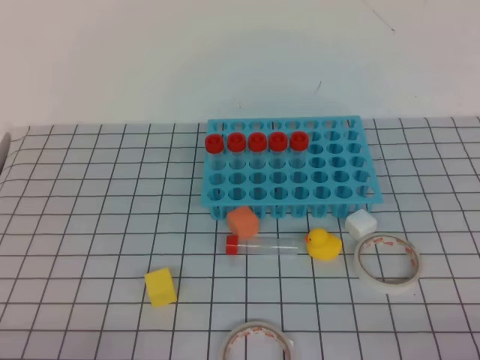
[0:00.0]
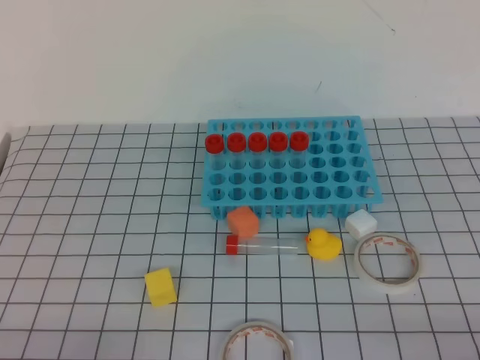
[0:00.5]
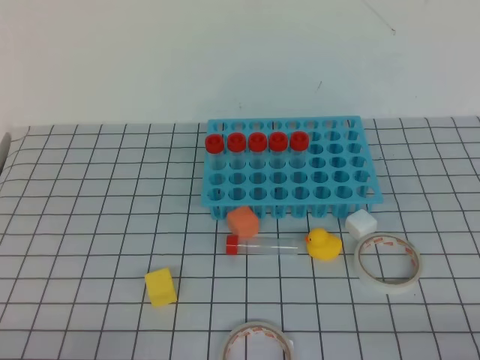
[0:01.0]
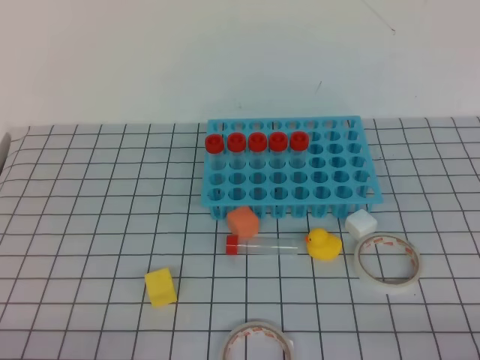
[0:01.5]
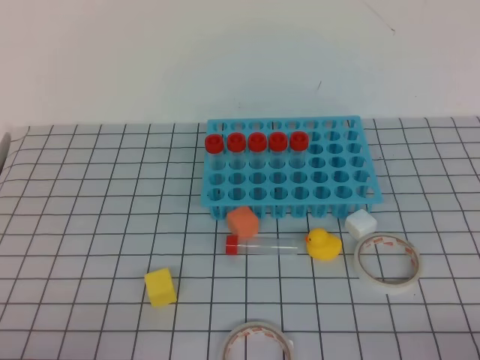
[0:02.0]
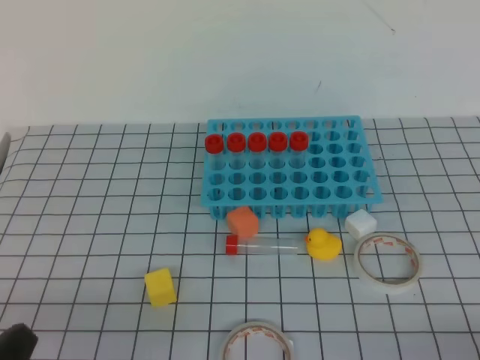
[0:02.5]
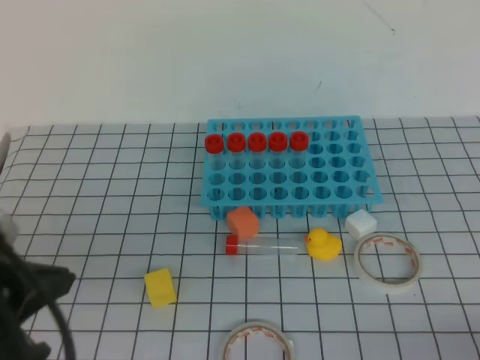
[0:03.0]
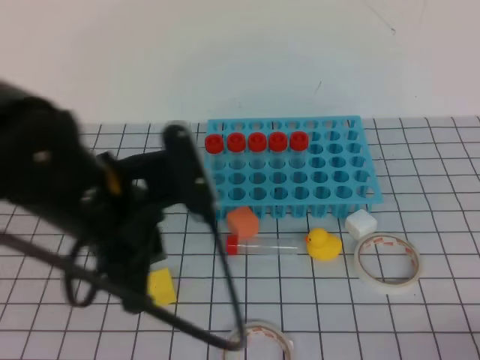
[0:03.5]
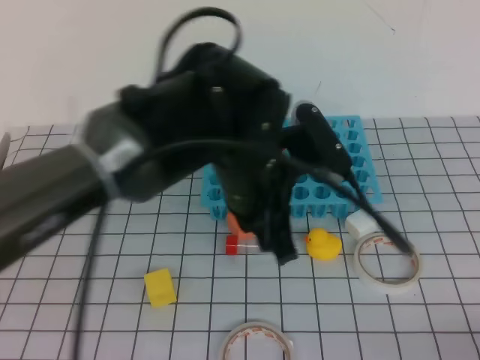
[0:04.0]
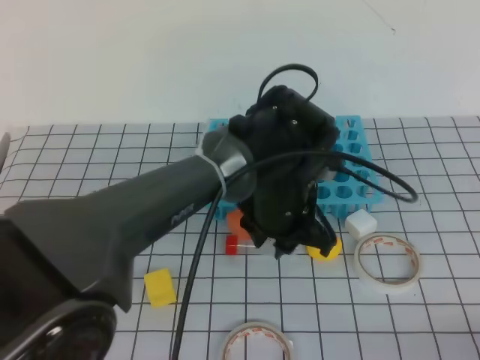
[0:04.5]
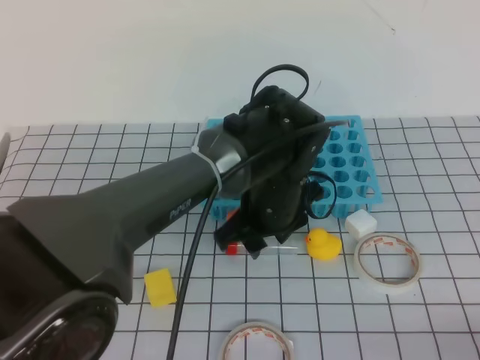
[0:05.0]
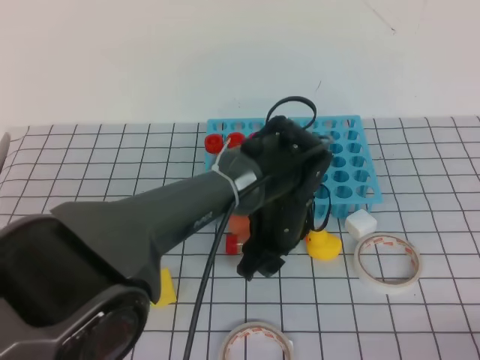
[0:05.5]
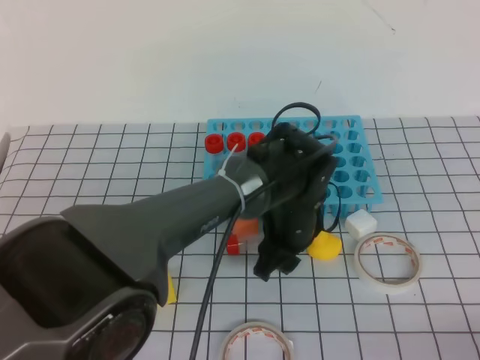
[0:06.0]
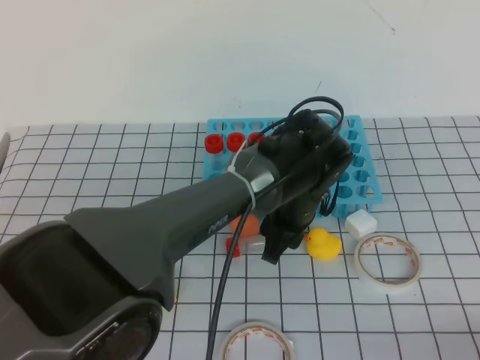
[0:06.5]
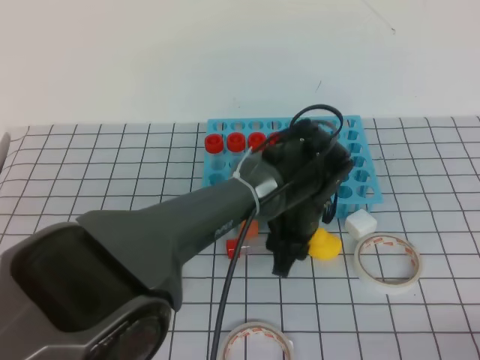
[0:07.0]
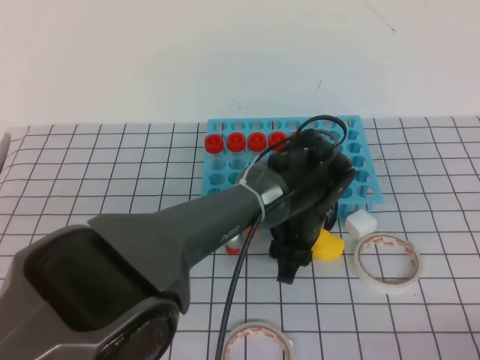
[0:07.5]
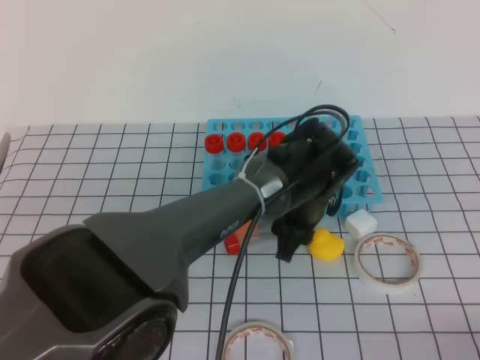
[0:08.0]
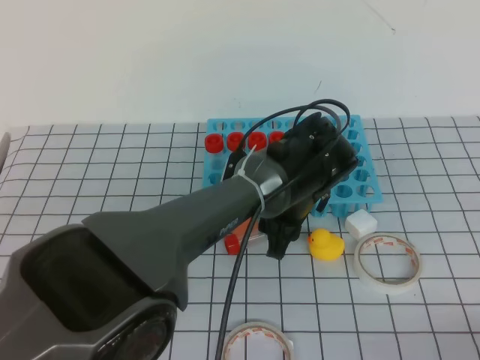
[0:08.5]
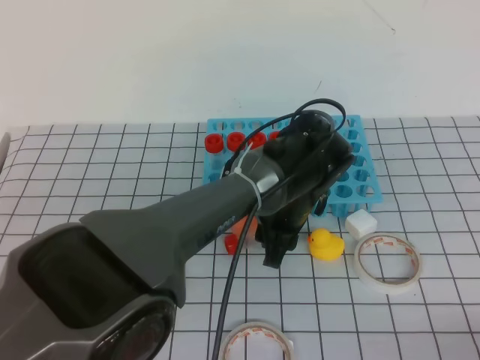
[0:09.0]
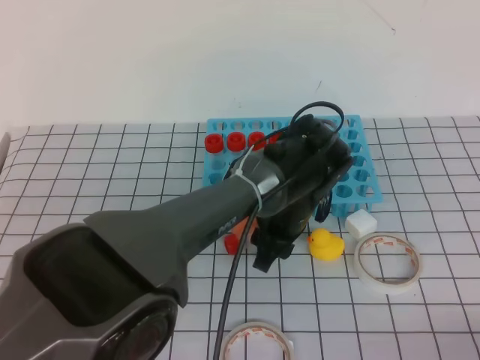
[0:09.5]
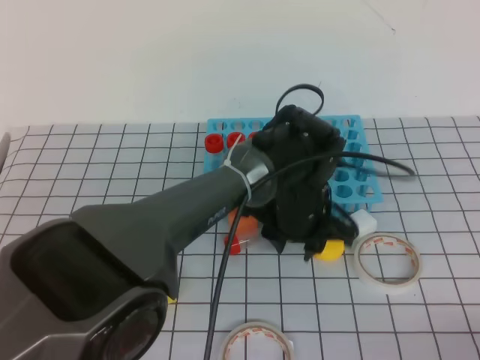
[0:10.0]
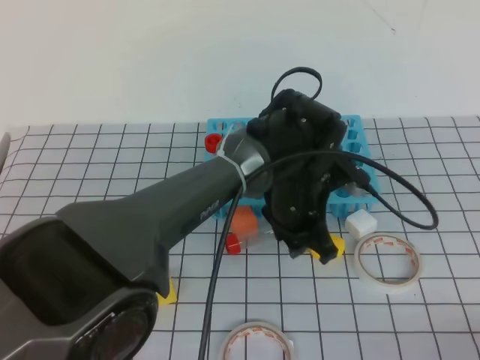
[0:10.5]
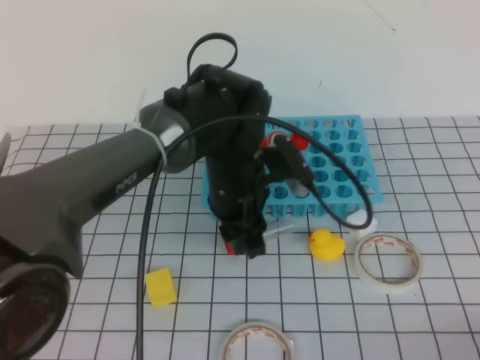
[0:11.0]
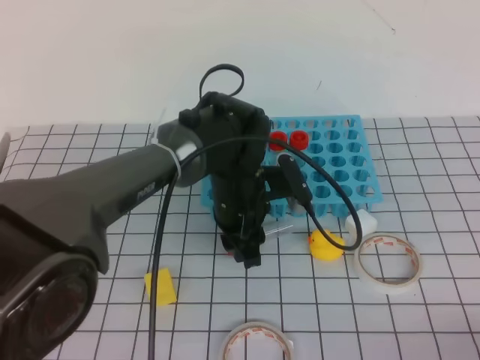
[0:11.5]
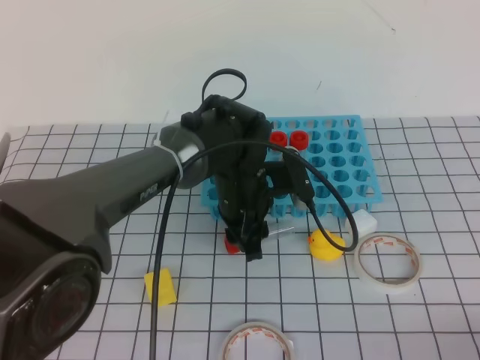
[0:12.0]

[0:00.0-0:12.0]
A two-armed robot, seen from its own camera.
0:02.0 to 0:04.0: The left gripper shifts about 35 cm to the right, forward and upward.
0:04.0 to 0:06.0: The left gripper goes roughly 15 cm downward, forward and to the right, and opens its fingers.
0:10.0 to 0:12.0: The left gripper moves to the left, approximately 5 cm.

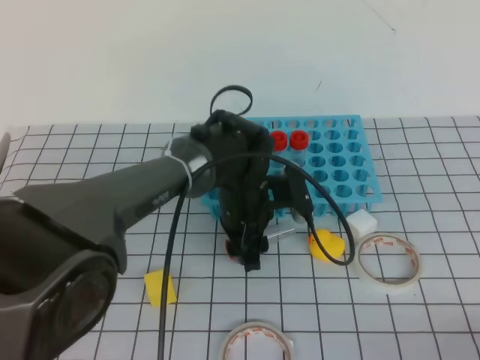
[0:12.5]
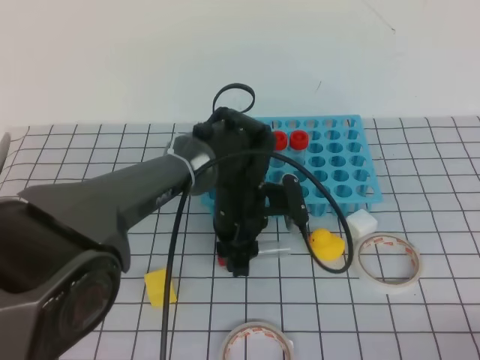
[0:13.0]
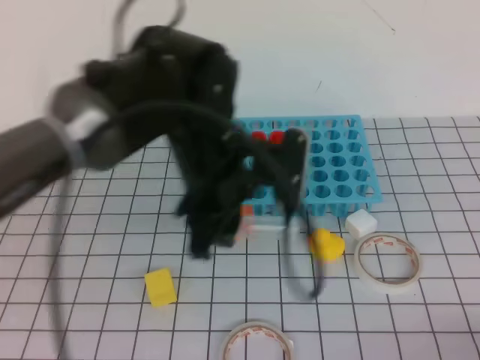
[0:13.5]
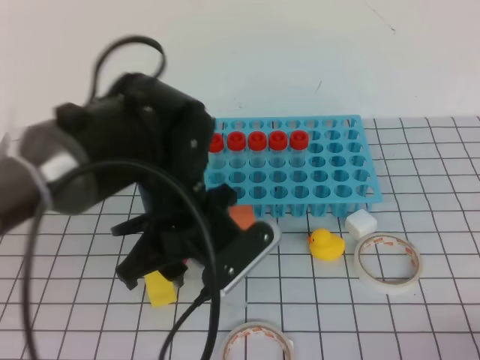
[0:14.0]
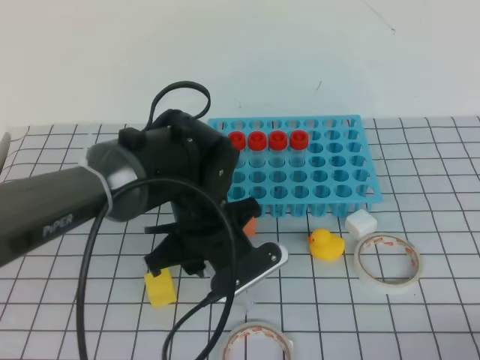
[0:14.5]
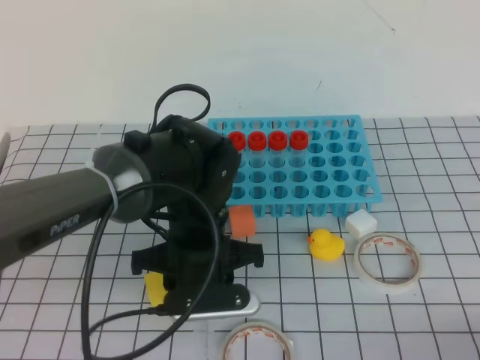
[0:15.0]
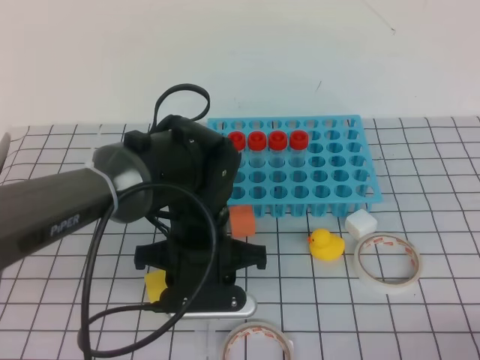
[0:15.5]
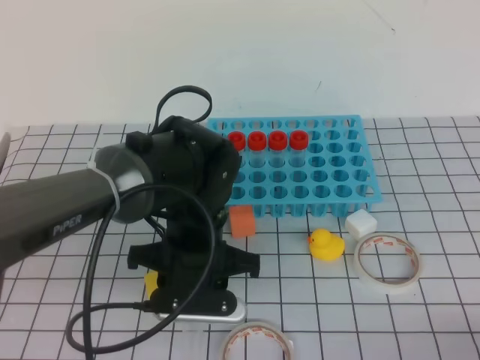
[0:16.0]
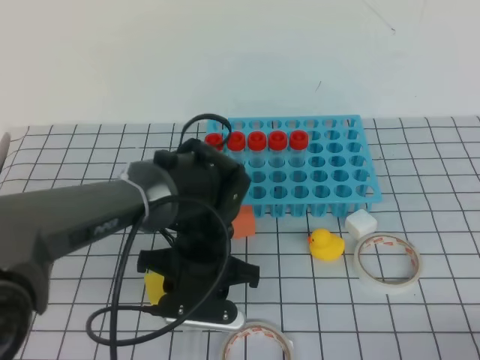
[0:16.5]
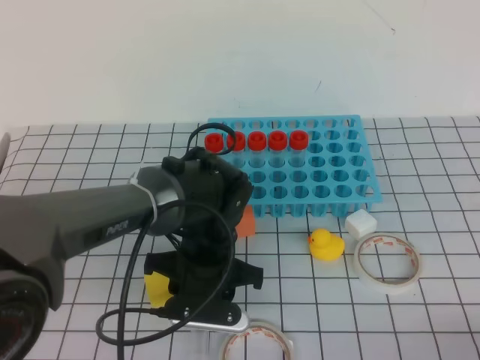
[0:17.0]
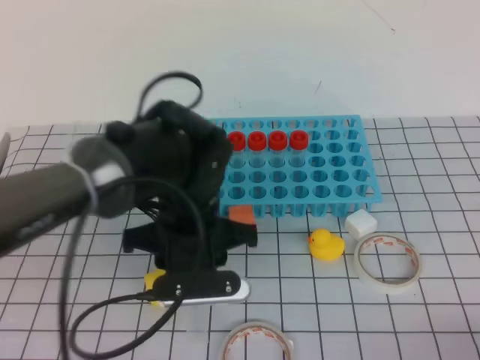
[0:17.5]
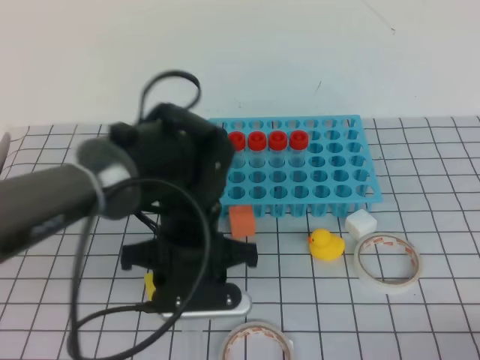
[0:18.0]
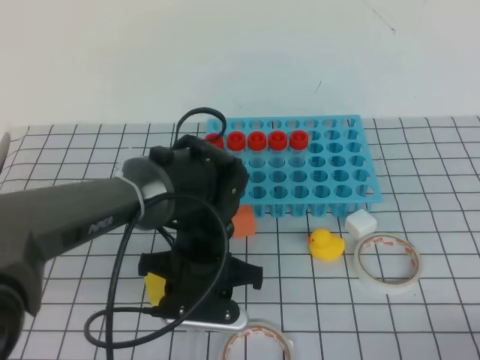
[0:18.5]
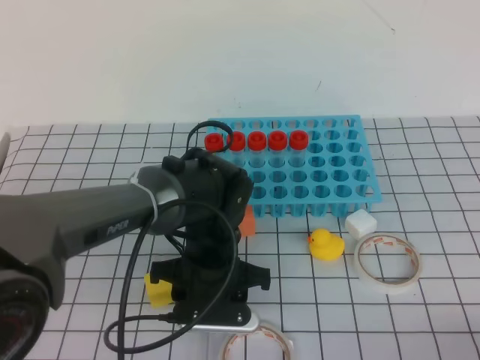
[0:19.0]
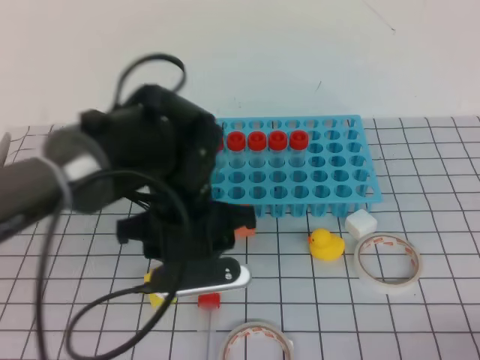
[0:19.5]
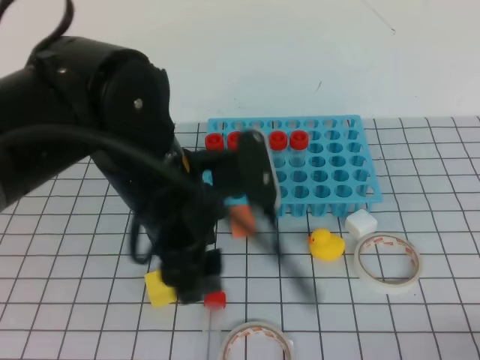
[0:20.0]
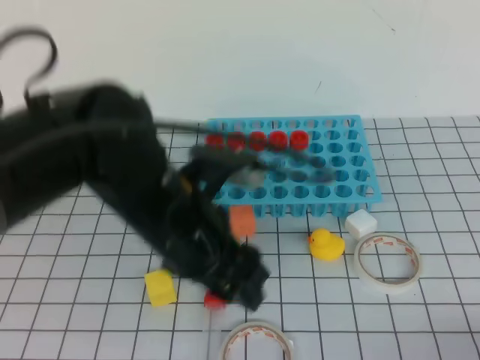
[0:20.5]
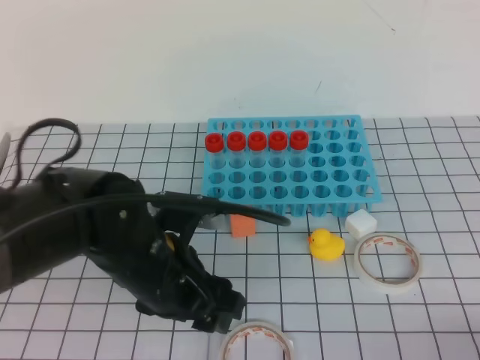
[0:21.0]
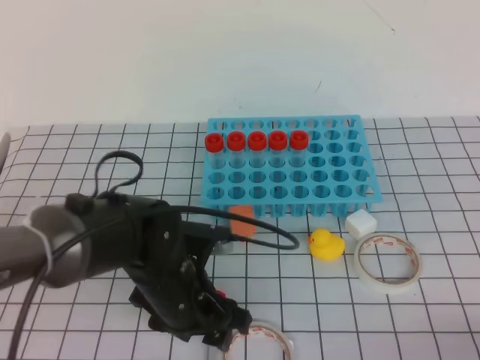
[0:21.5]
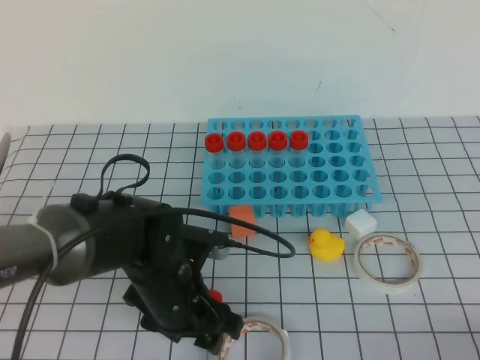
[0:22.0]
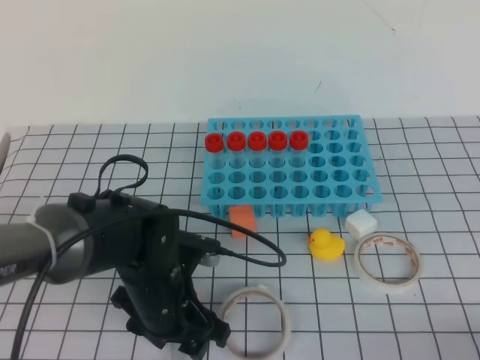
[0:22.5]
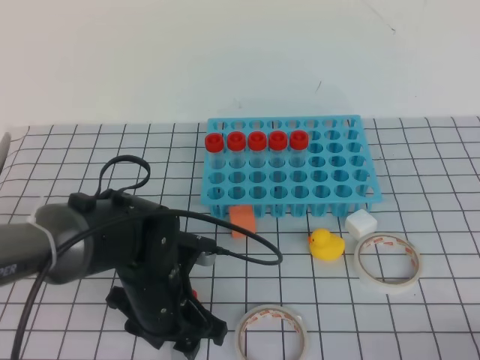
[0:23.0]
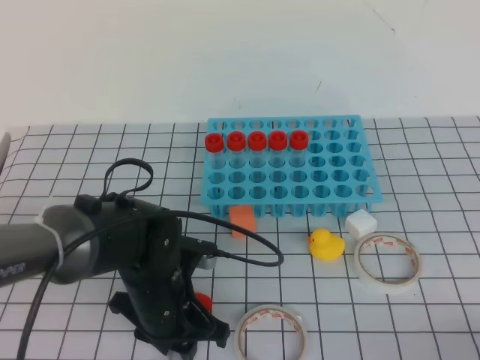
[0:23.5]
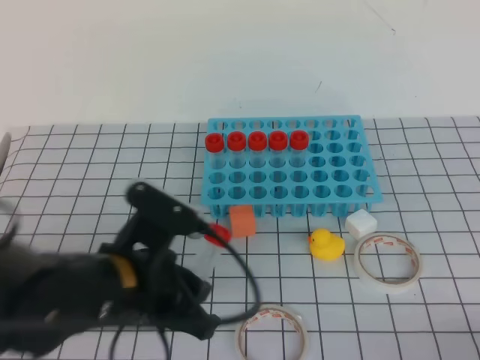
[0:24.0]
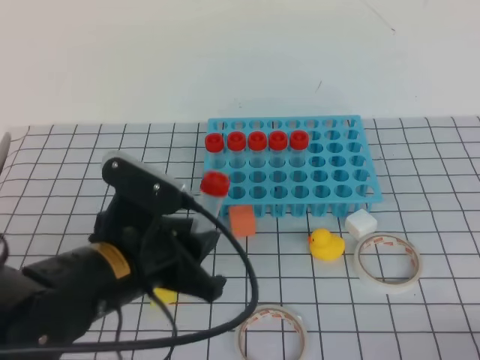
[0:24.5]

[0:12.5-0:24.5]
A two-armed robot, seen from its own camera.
0:12.5 to 0:14.5: The left gripper shifts approximately 10 cm backward.
0:18.5 to 0:20.5: The left gripper goes about 15 cm upward and backward, and opens.
0:20.5 to 0:22.5: The left gripper travels downward by roughly 15 cm.
0:22.5 to 0:24.5: The left gripper heads upward and backward, covering about 10 cm, and closes up.

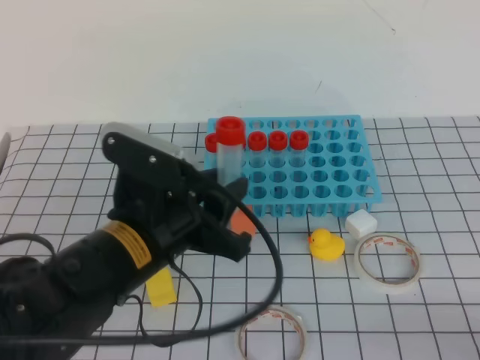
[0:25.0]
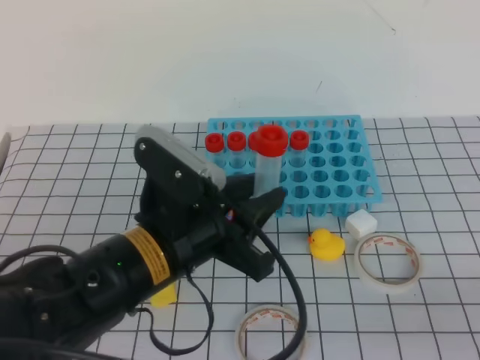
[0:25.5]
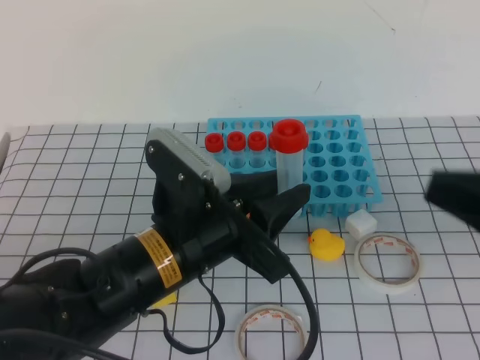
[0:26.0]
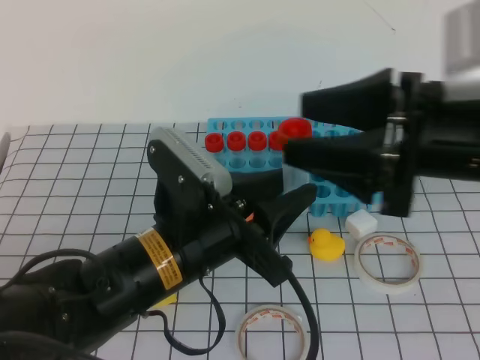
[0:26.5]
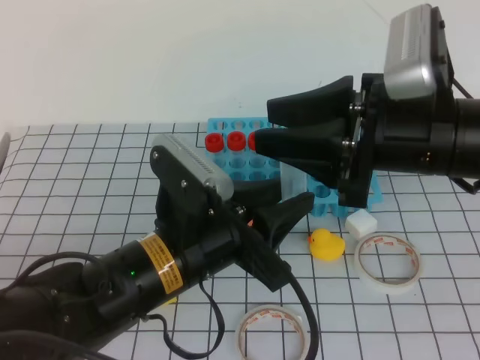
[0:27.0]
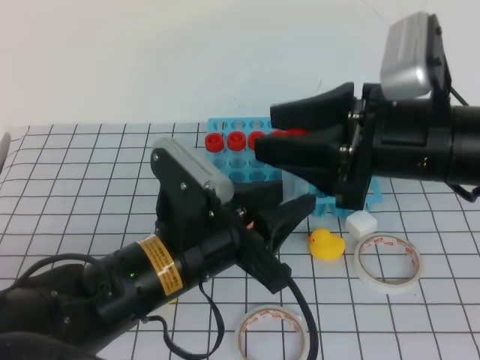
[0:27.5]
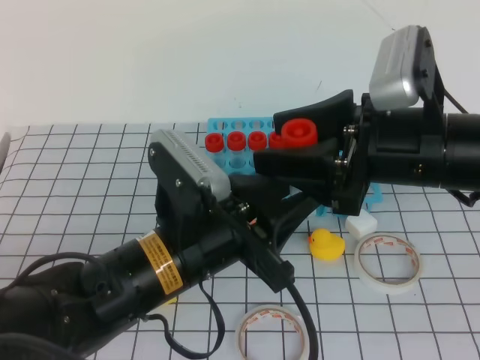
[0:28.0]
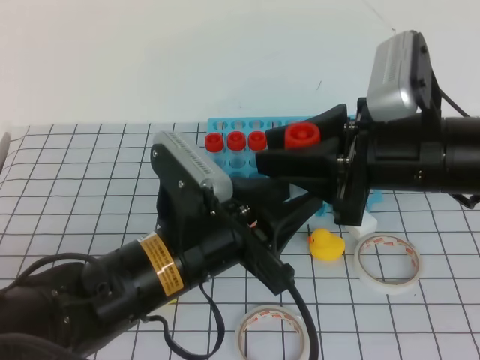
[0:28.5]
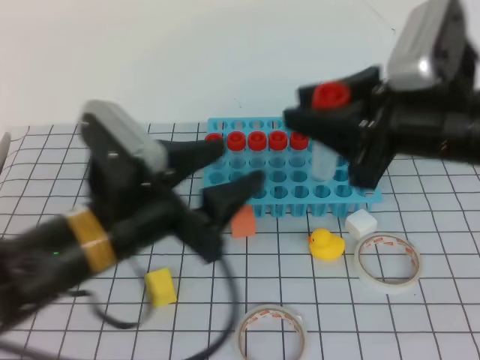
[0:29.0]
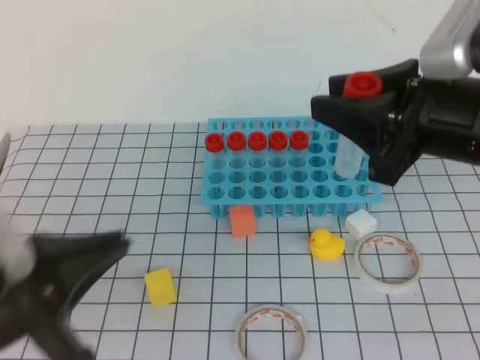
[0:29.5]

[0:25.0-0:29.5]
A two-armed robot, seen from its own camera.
0:25.0 to 0:27.0: The right gripper goes about 30 cm forward, to the left and upward, and opens.
0:27.0 to 0:29.5: The left gripper is displaced to the left and backward by roughly 15 cm, and closes its fingers.
